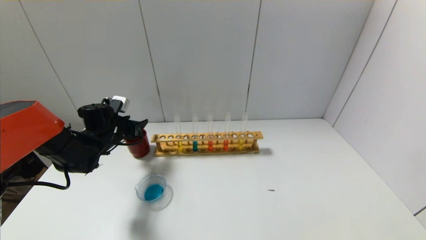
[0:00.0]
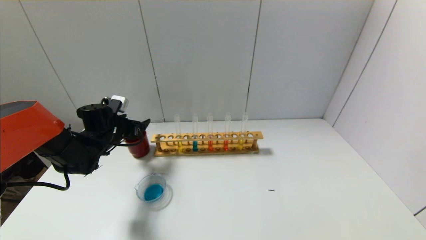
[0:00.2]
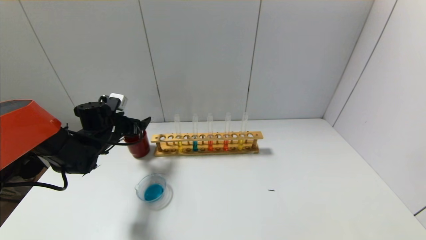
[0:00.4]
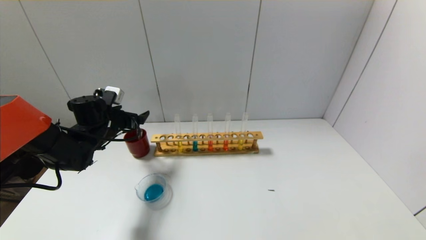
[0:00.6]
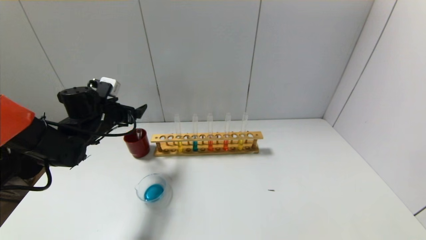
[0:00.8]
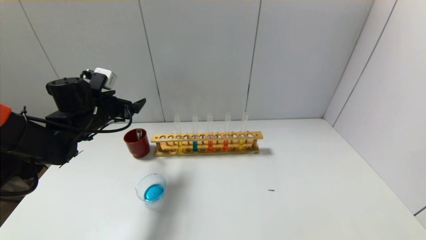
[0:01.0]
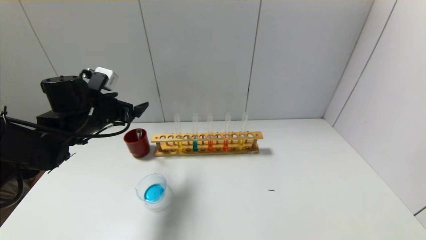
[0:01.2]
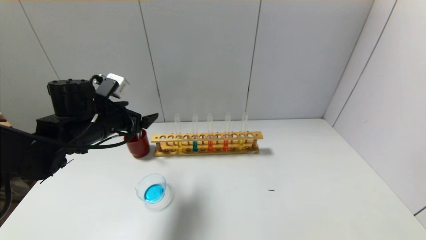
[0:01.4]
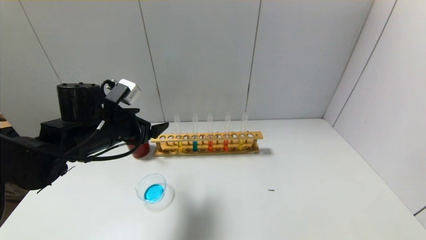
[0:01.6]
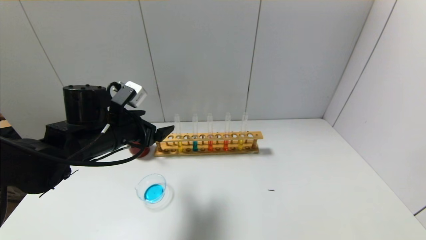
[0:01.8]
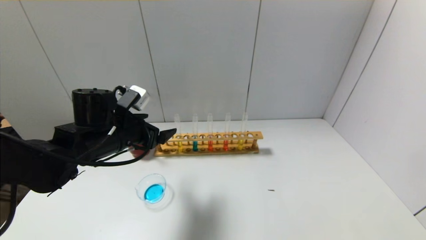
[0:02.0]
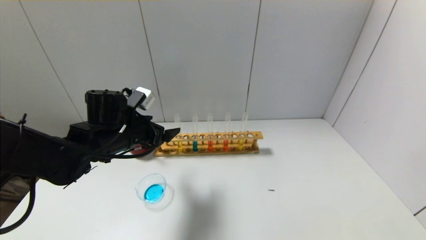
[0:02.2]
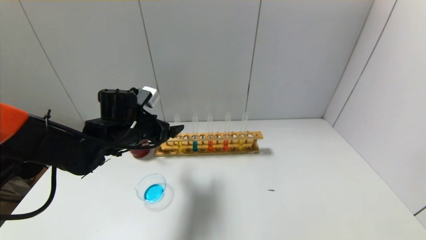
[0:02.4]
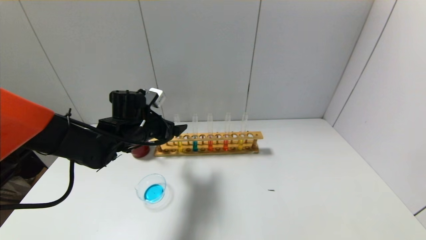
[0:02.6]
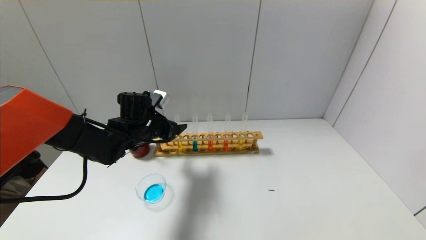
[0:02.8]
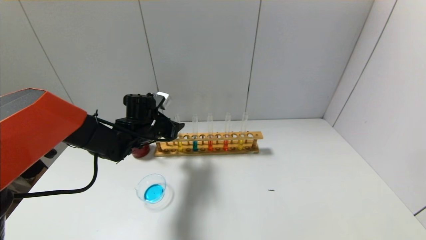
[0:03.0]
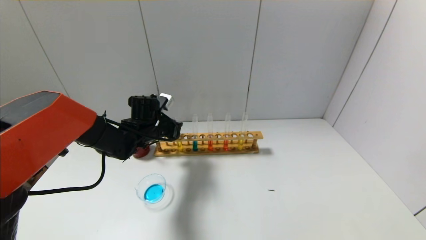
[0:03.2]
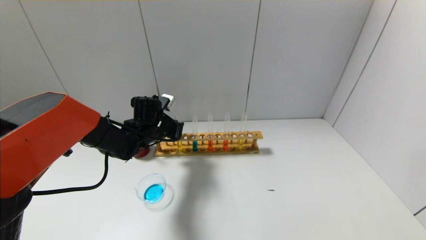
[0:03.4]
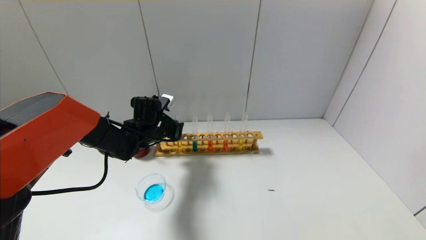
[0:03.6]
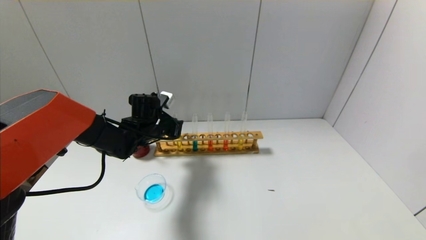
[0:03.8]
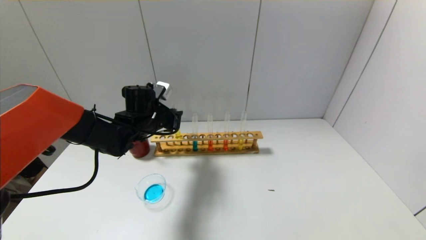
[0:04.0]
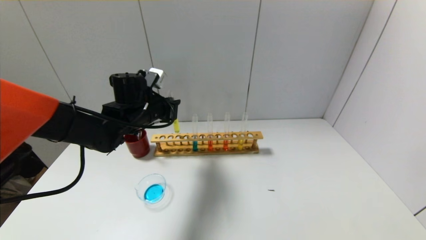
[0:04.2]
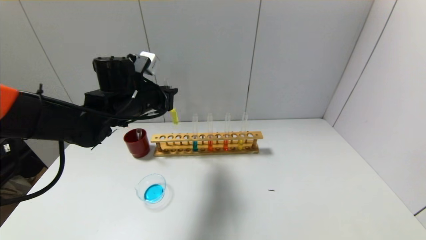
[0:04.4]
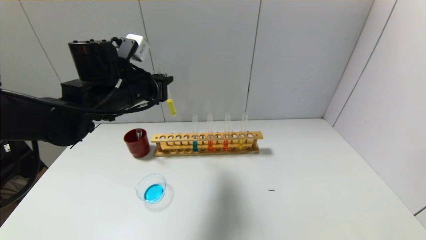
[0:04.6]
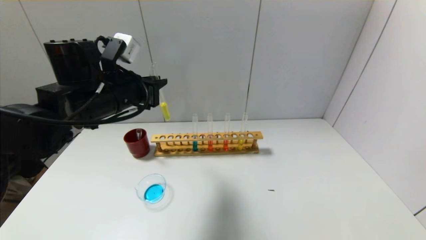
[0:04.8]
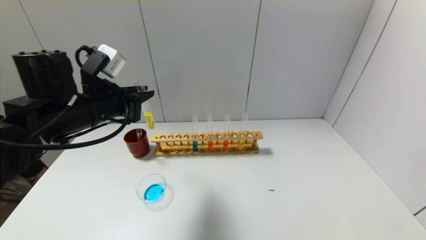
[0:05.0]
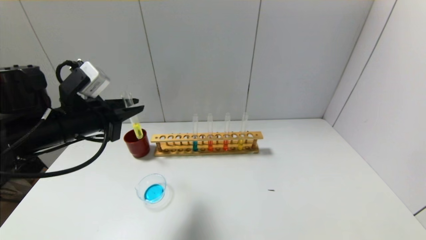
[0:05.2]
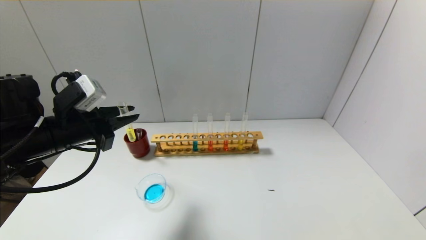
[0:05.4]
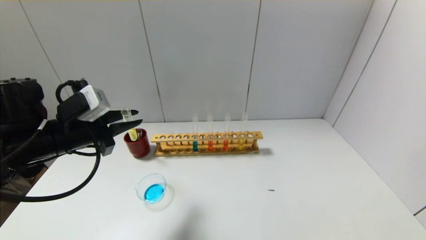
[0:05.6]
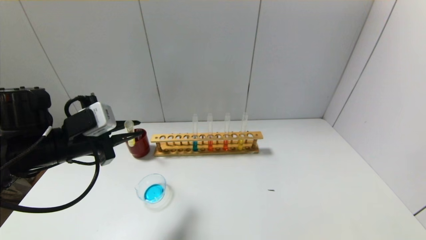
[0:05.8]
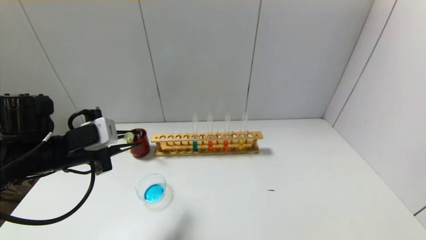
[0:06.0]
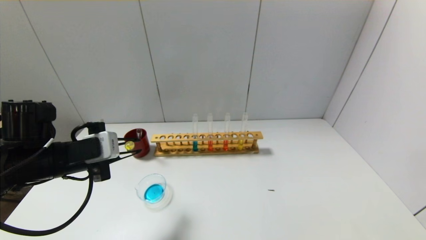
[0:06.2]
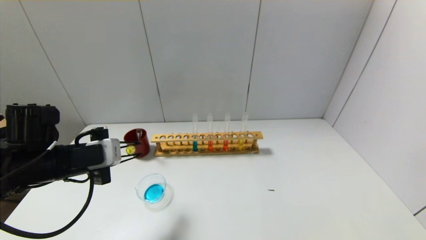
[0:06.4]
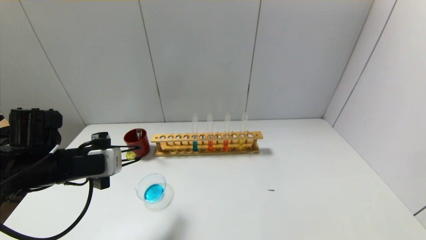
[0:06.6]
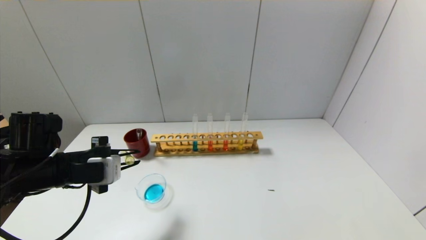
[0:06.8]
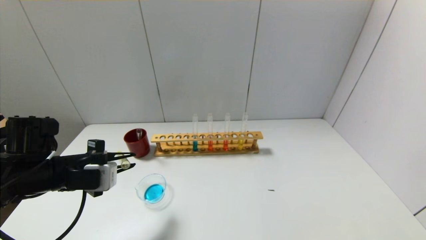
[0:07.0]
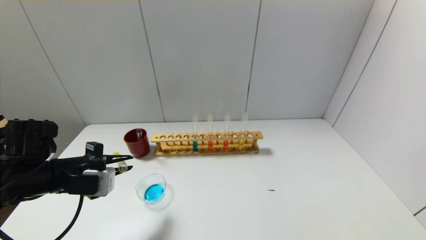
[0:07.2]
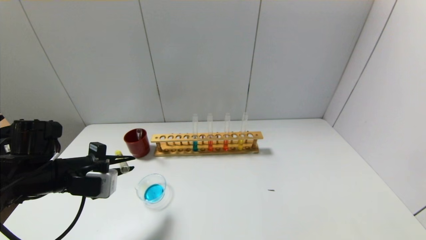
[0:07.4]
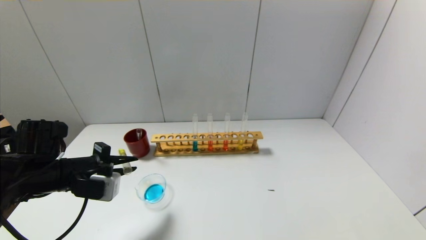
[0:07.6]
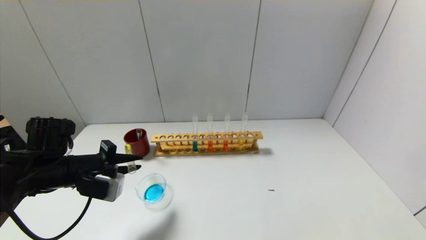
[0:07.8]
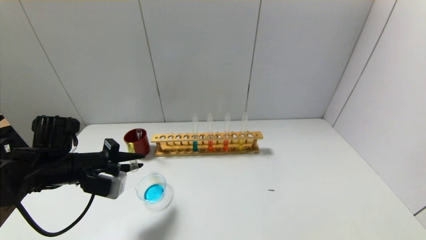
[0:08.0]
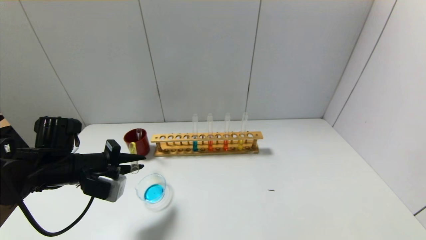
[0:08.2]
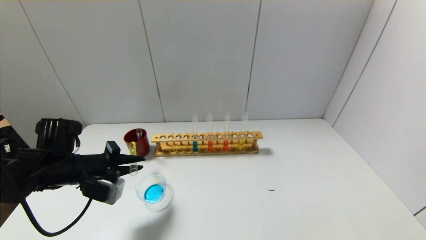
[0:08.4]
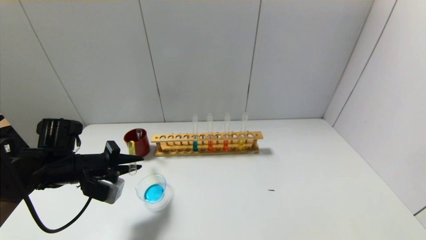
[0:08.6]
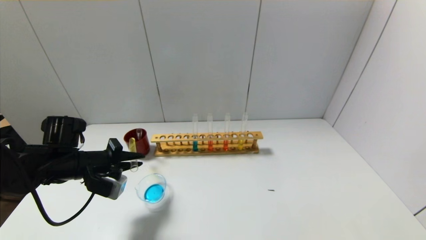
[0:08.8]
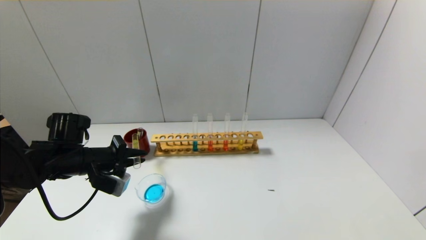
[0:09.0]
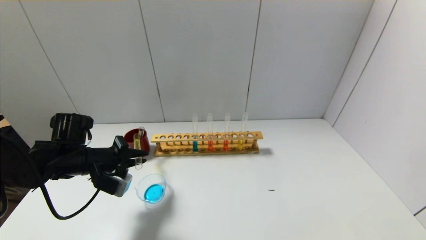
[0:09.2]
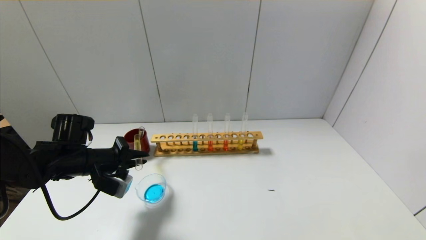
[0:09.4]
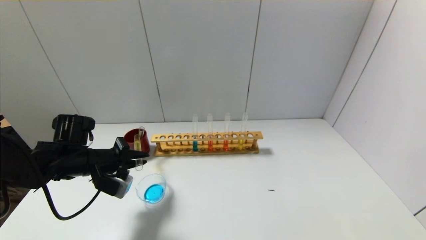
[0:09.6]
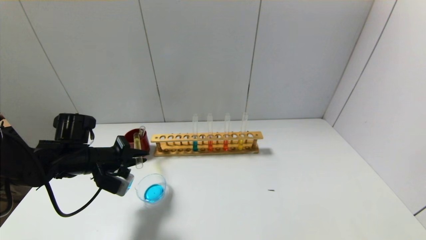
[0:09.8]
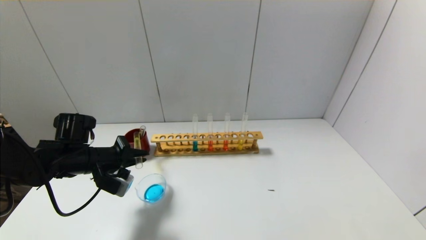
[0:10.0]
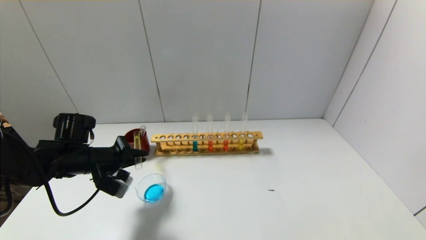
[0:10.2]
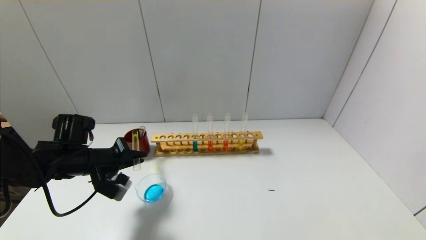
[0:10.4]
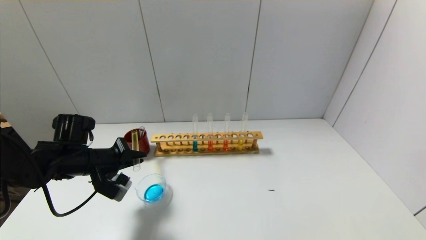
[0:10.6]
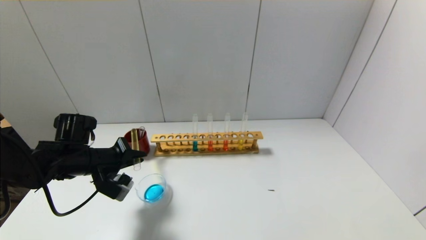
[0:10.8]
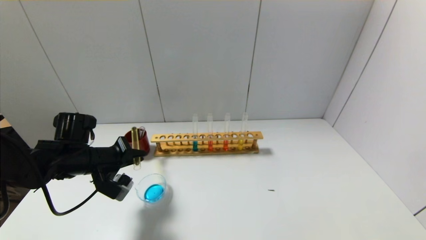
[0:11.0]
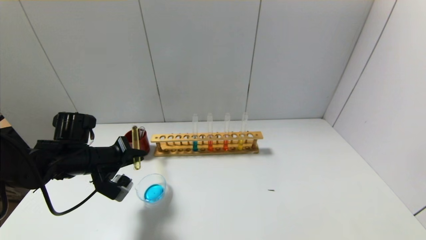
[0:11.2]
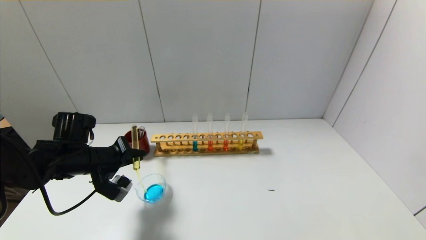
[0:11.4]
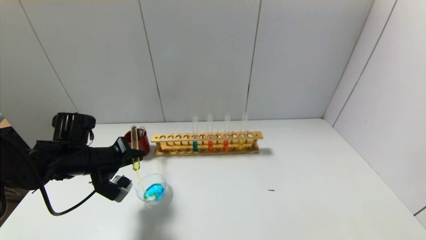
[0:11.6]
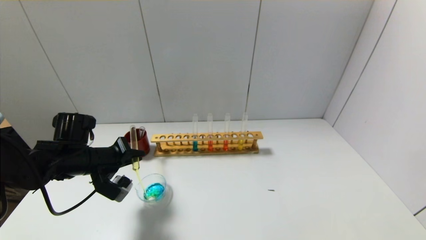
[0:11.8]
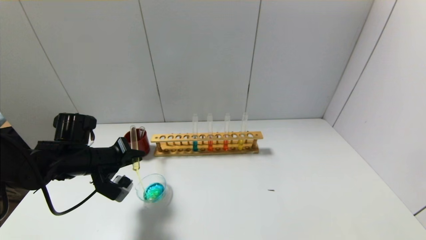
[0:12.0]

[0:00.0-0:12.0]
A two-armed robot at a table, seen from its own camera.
Step, 0:00.0 to 0:03.2: Grasp the yellow reagent with the left gripper.
0:00.0 to 0:01.6: The left gripper heads backward, upward and to the right, covering approximately 15 cm, and opens its fingers.
0:01.6 to 0:03.0: The left gripper is displaced forward and downward by roughly 10 cm, and closes.
0:03.0 to 0:04.4: The left gripper shifts about 10 cm upward, and closes.
0:04.4 to 0:06.0: The left gripper shifts approximately 15 cm backward and to the left.
0:06.0 to 0:07.6: The left gripper travels downward by roughly 5 cm.
0:07.6 to 0:09.0: The left gripper heads forward, covering approximately 5 cm.
0:09.0 to 0:12.0: The grippers stay close to where they were, moving slightly.

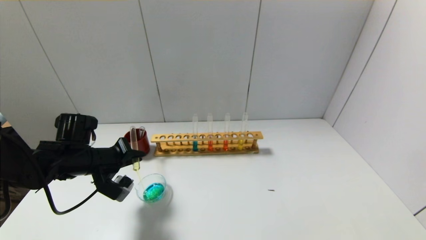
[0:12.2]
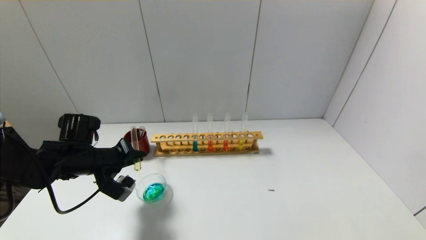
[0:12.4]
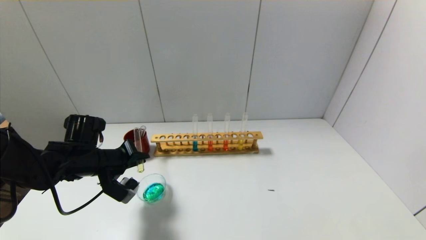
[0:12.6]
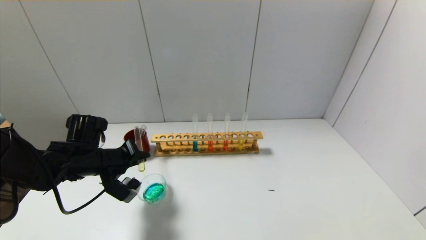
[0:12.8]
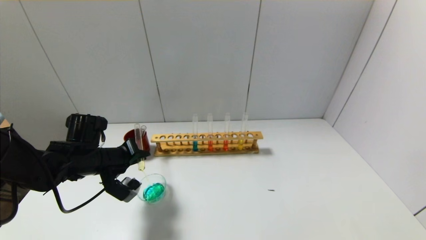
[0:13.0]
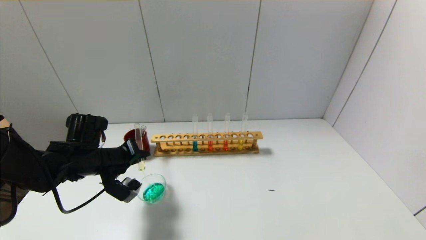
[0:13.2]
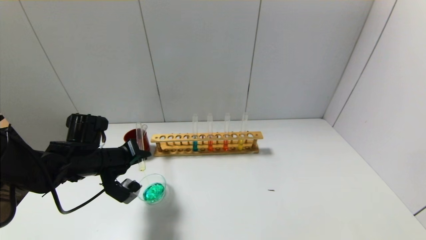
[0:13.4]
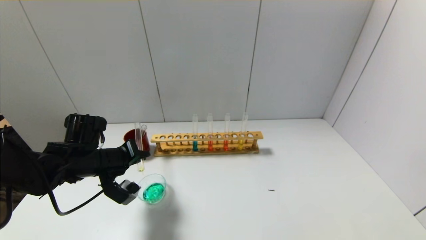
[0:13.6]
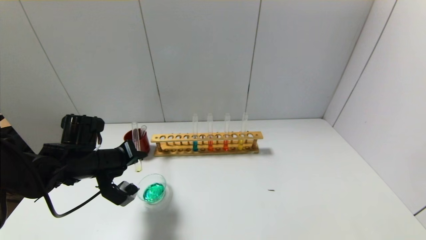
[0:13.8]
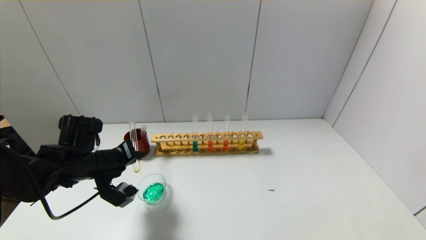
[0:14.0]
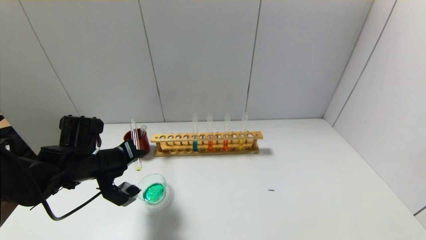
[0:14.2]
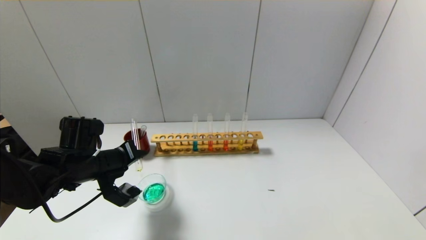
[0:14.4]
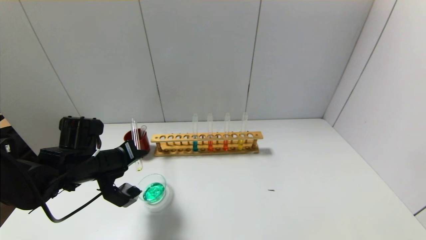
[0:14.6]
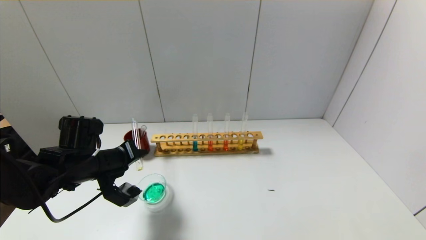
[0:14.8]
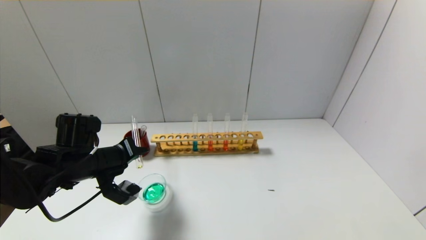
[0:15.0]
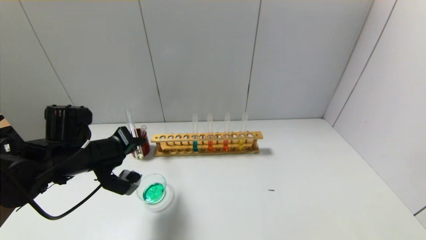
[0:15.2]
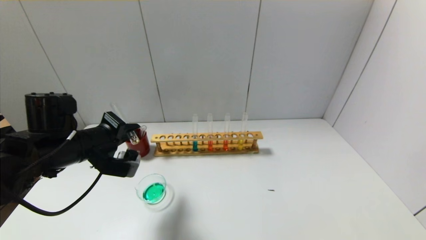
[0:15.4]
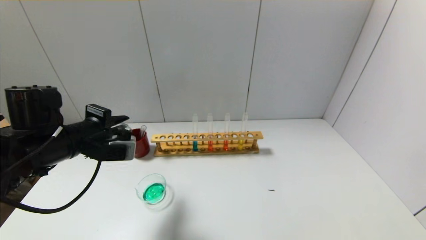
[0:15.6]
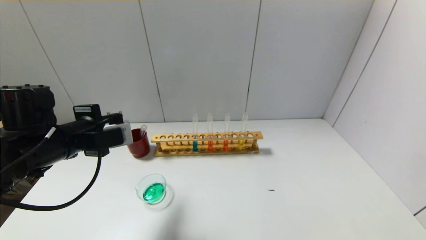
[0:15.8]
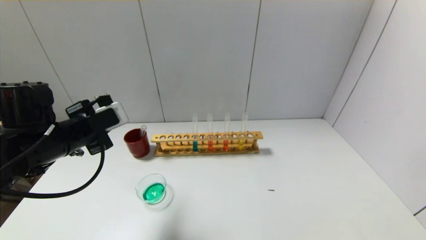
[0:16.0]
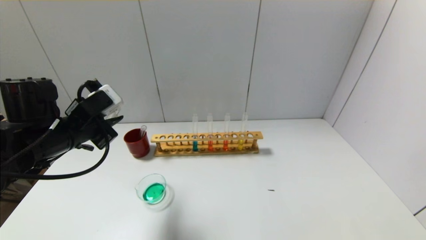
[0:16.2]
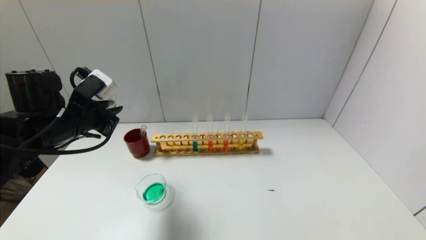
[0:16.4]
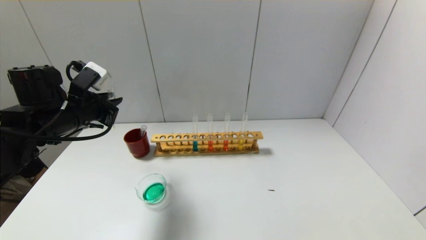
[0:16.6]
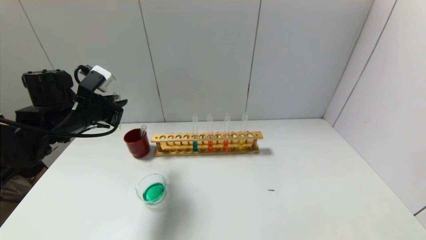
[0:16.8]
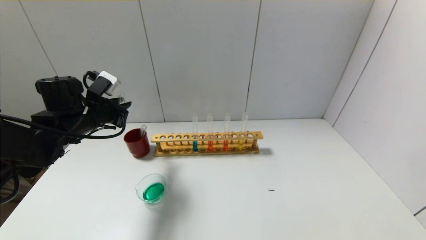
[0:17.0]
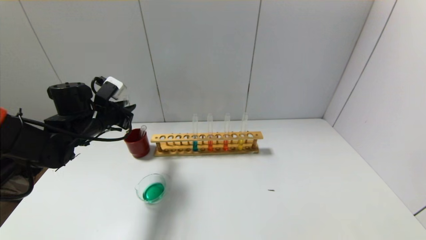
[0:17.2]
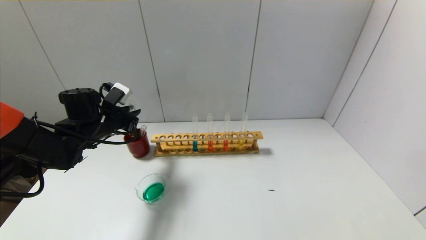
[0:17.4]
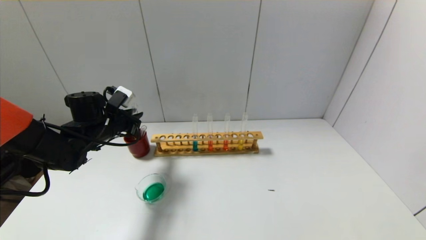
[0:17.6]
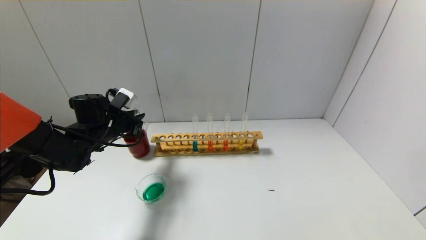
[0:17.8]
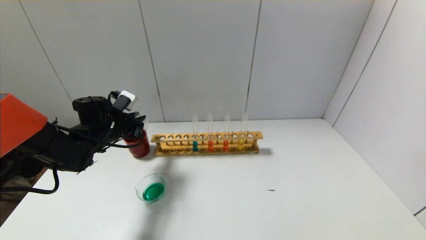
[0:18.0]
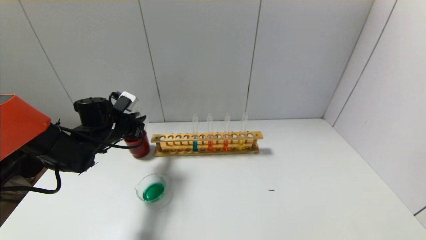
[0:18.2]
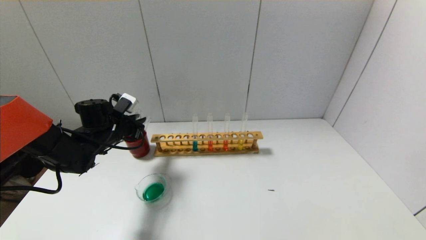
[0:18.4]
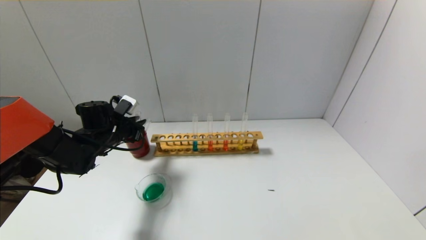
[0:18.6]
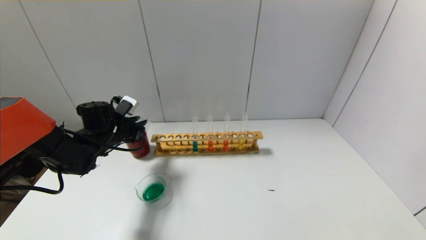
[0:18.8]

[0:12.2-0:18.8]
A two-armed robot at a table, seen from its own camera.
Step, 0:12.2 to 0:15.2: Pour the yellow reagent into the graduated cylinder with the left gripper.
0:12.2 to 0:13.8: There are only small adjustments of the grippers.
0:13.8 to 0:15.4: The left gripper travels upward by roughly 5 cm.
0:15.4 to 0:17.2: The left gripper heads forward, covering roughly 10 cm.
0:17.2 to 0:18.8: The left gripper travels downward by approximately 5 cm.
